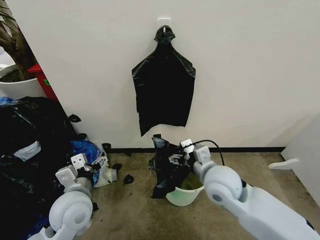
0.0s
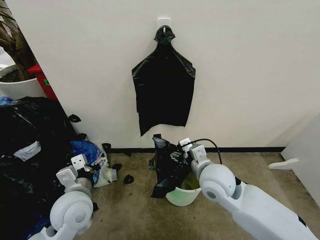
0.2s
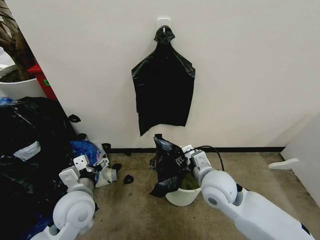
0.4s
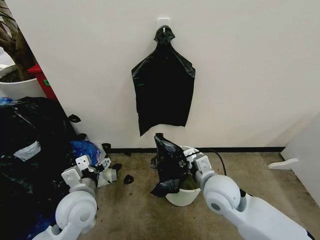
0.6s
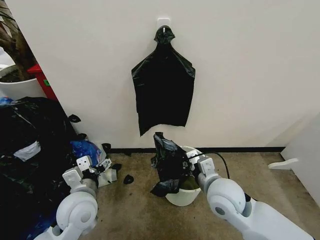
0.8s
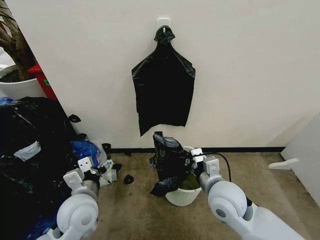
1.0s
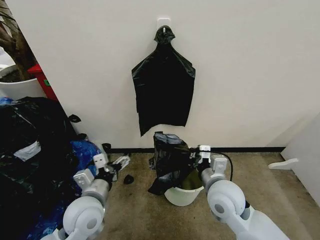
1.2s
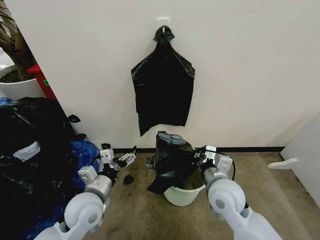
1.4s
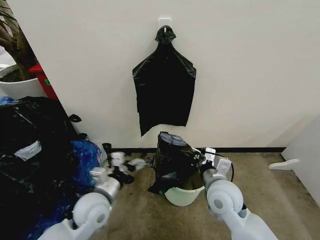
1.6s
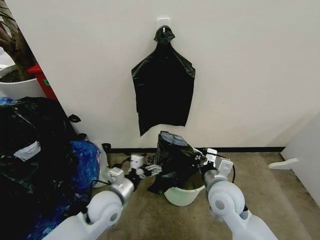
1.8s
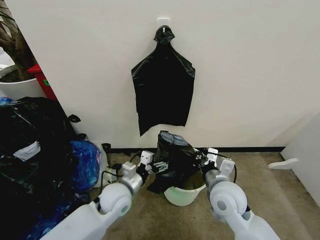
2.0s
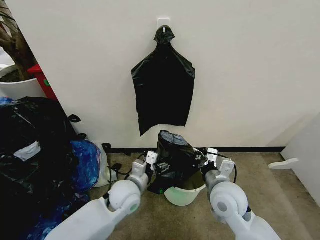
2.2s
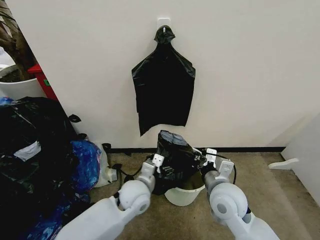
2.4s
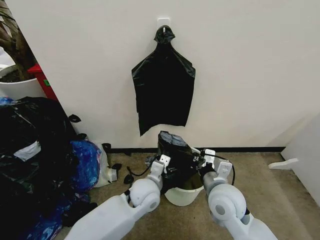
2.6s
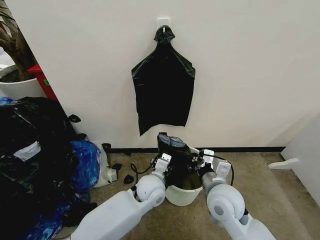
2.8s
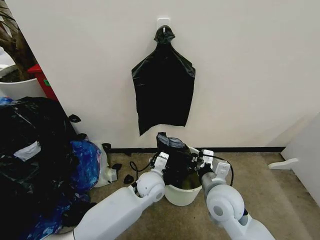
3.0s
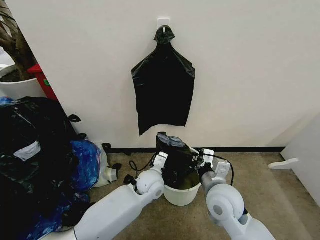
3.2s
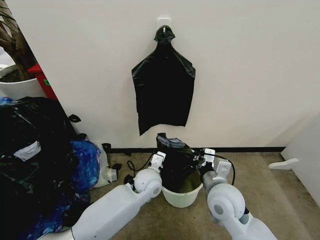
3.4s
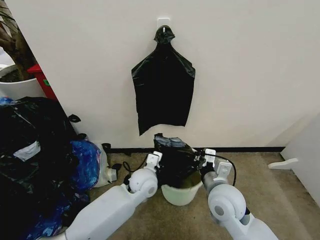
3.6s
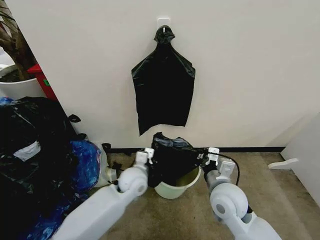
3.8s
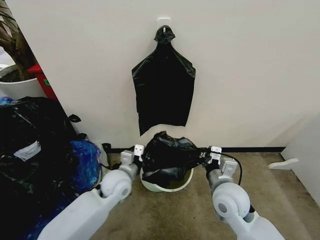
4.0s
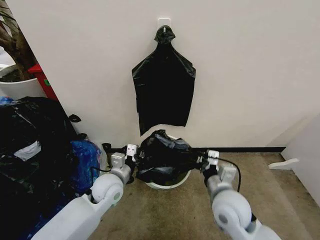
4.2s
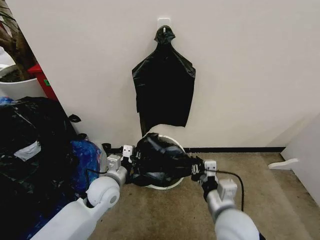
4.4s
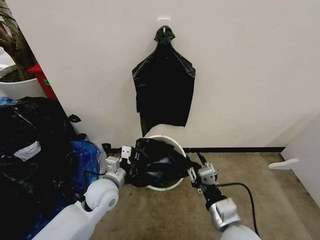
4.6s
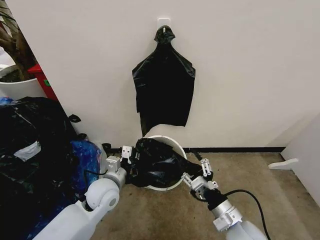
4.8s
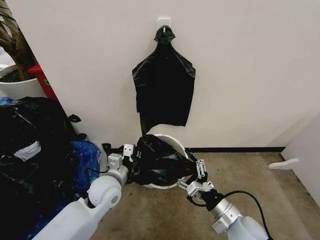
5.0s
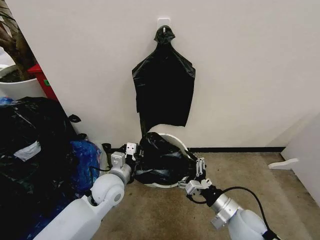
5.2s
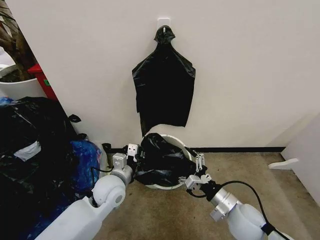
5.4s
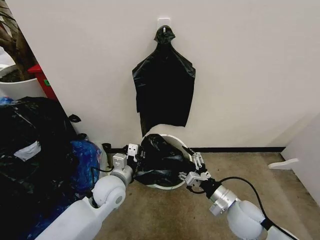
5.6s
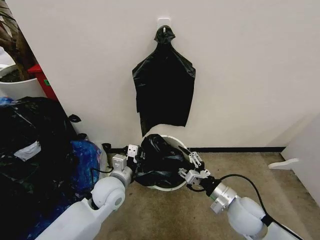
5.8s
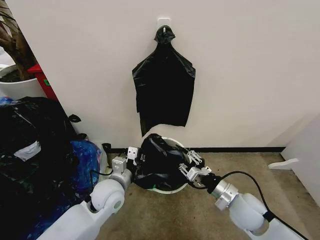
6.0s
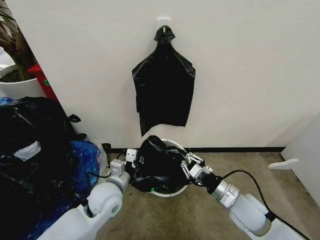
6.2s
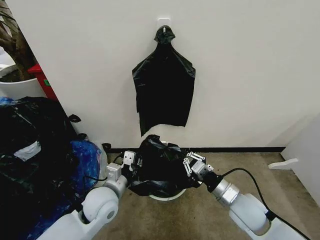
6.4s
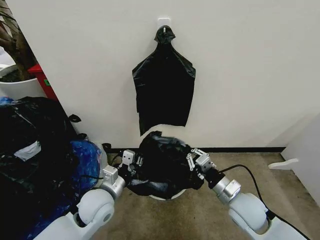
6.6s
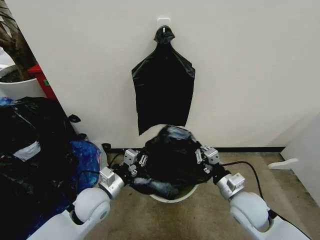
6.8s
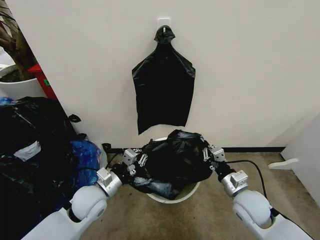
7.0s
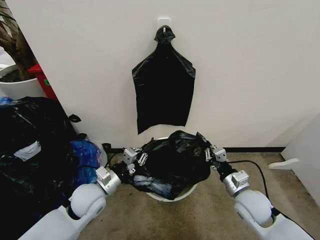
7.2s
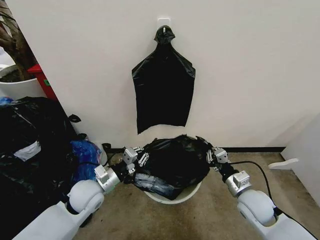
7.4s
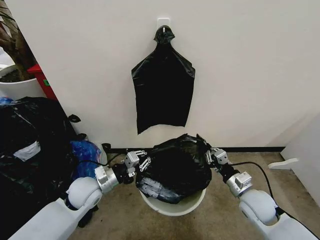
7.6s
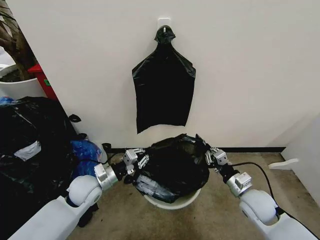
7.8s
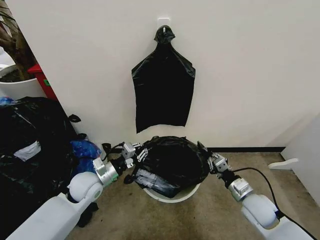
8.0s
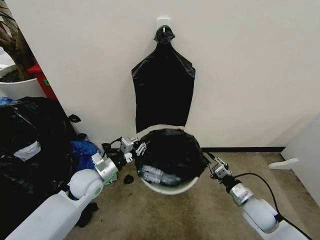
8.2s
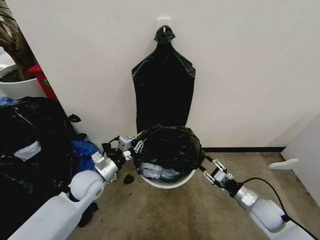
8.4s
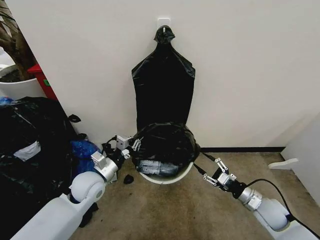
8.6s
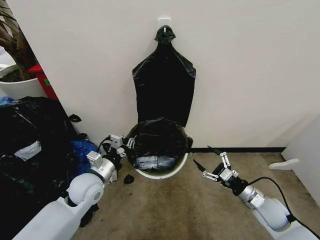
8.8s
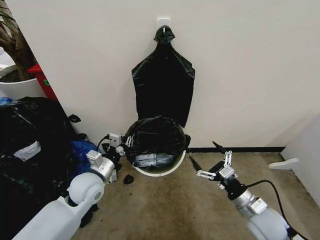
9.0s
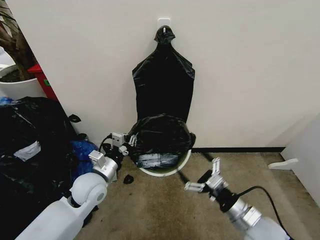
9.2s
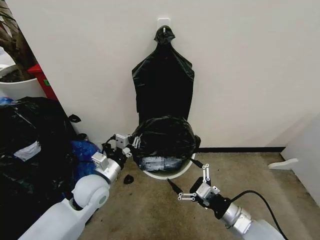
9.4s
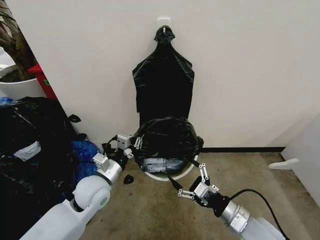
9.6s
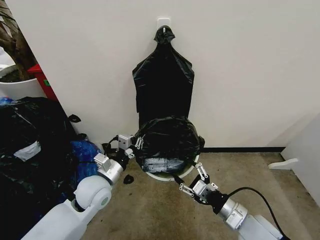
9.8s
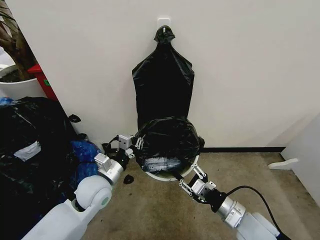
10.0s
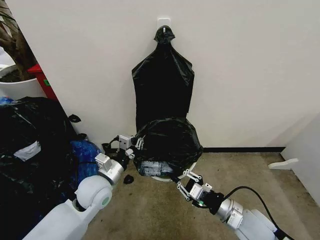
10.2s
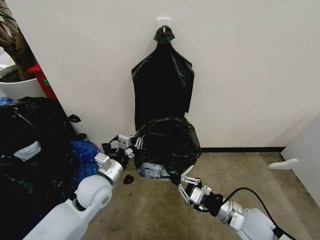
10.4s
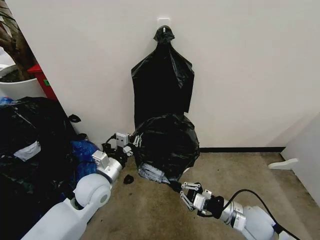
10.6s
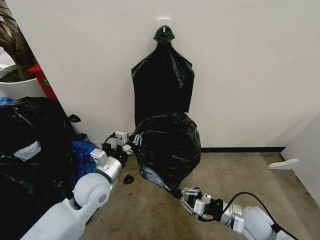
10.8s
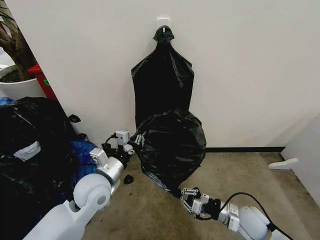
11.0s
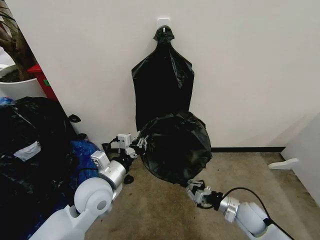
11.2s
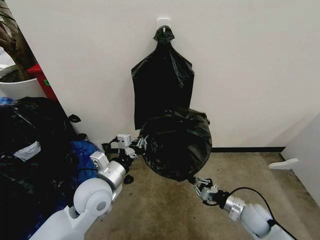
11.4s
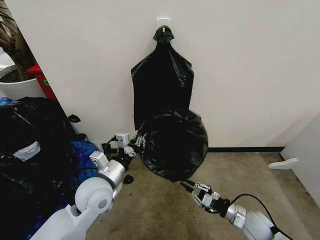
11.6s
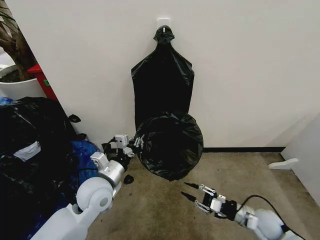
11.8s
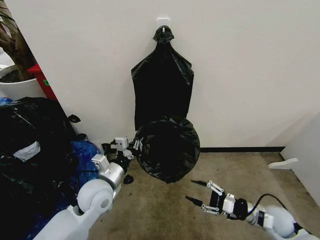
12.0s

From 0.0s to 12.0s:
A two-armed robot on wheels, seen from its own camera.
Task of the whole recording: Place the garbage bag over the trash bin.
From 0.0s to 1.6s: The grippers both shift downward by some 5 cm. The right gripper closes.
From 1.6s to 3.0s: The left gripper is displaced to the right and forward by roughly 20 cm.
From 3.0s to 4.4s: The right gripper heads backward, covering roughly 5 cm. The left gripper heads to the left, covering approximately 15 cm, and closes its fingers.
From 4.4s to 6.0s: The right gripper shifts some 10 cm to the right, forward and downward, and opens, then closes again.
From 6.0s to 7.6s: The right gripper heads to the right, covering about 5 cm. Meanwhile the left gripper shifts about 10 cm to the left.
From 7.6s to 9.0s: The right gripper shifts approximately 5 cm backward, and opens.
From 9.0s to 10.4s: The right gripper moves to the left, some 5 cm, and closes.
From 10.4s to 12.0s: The right gripper is displaced to the right and downward by about 15 cm, and opens up.

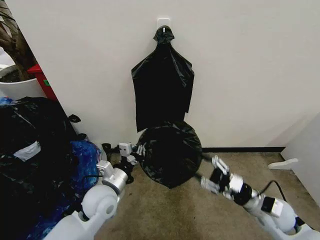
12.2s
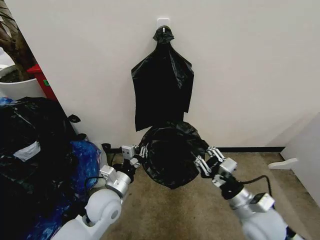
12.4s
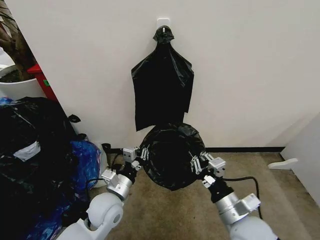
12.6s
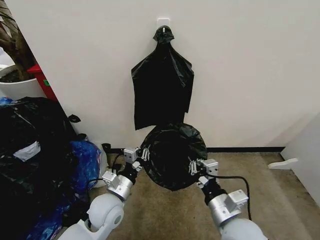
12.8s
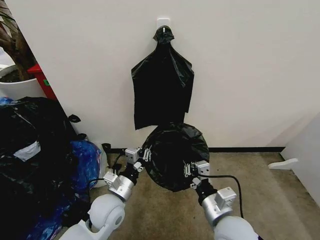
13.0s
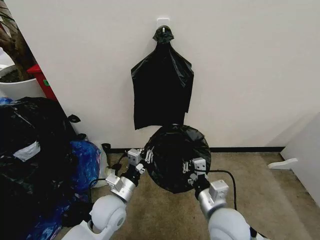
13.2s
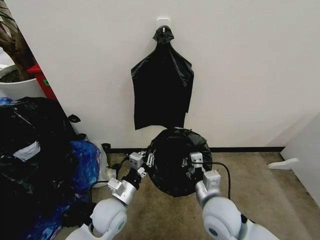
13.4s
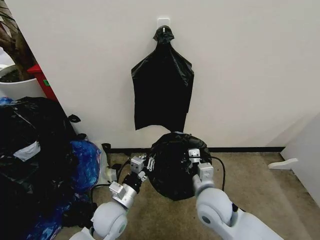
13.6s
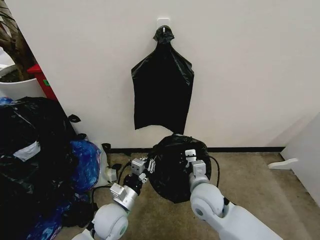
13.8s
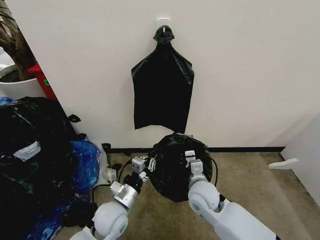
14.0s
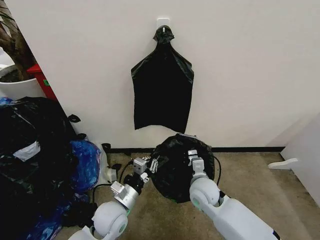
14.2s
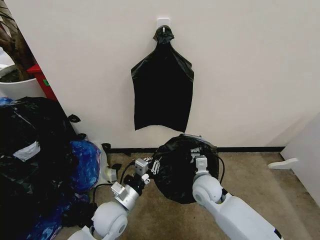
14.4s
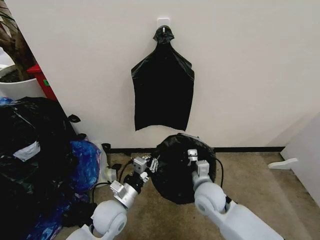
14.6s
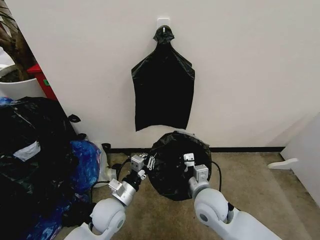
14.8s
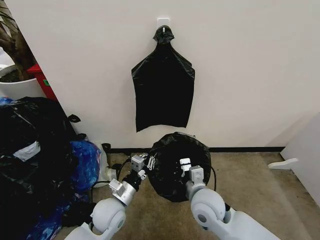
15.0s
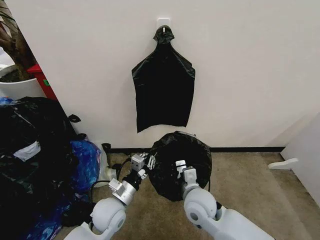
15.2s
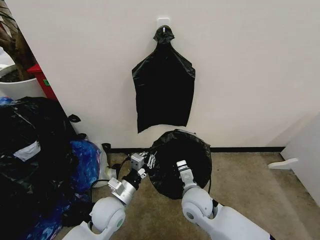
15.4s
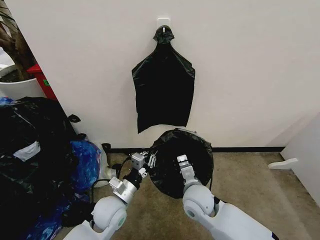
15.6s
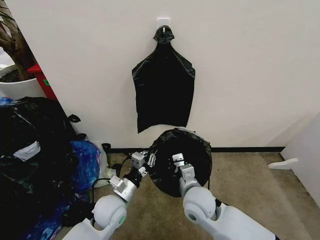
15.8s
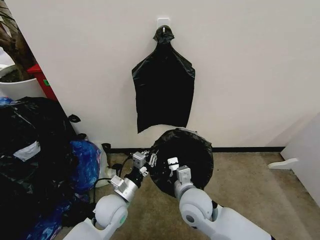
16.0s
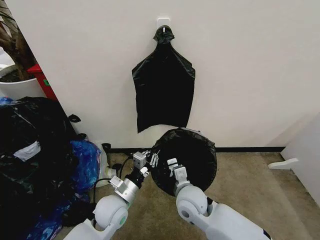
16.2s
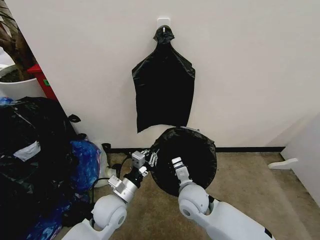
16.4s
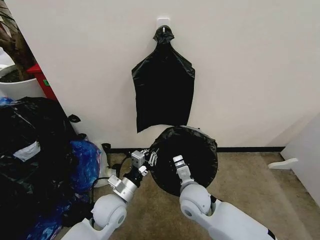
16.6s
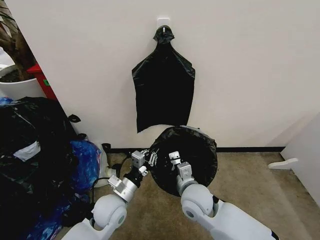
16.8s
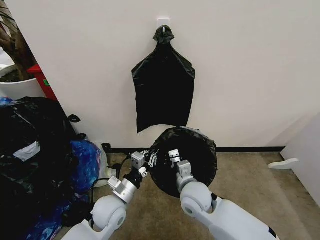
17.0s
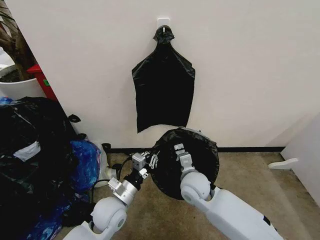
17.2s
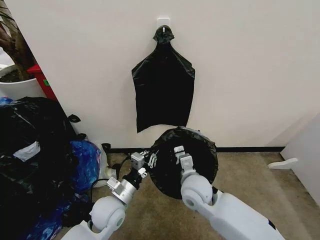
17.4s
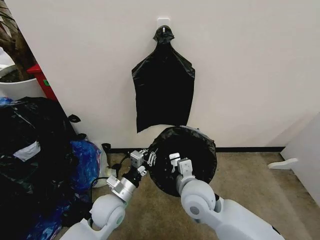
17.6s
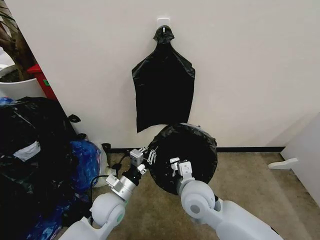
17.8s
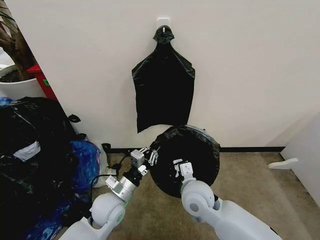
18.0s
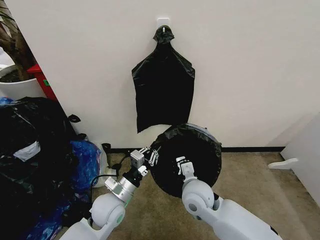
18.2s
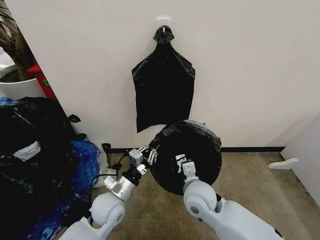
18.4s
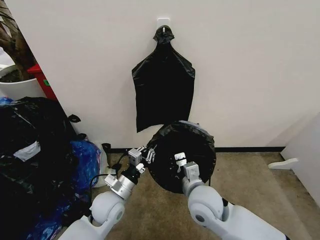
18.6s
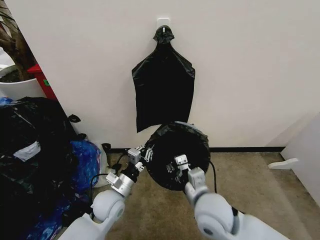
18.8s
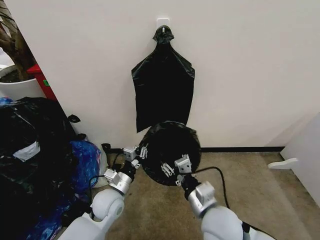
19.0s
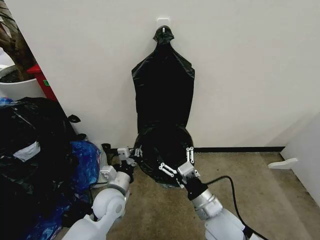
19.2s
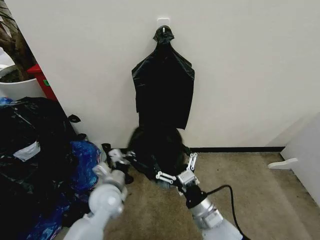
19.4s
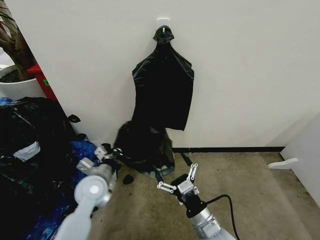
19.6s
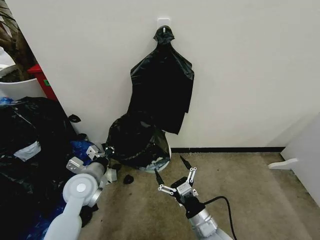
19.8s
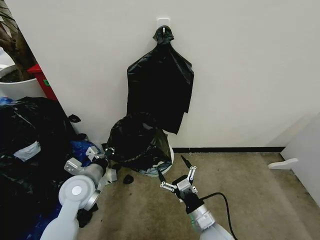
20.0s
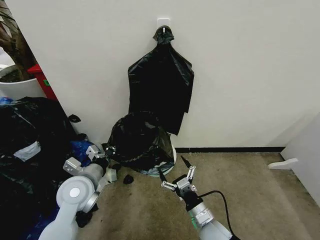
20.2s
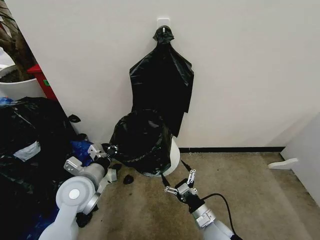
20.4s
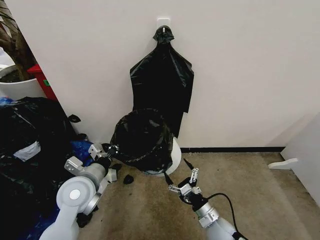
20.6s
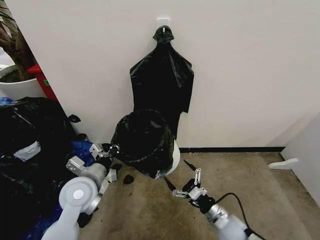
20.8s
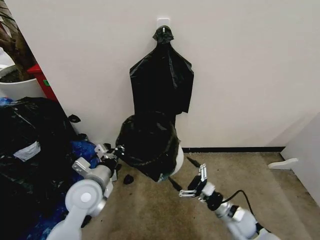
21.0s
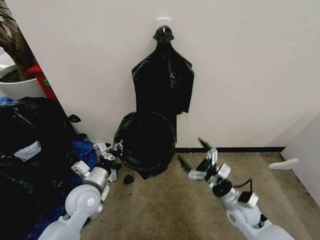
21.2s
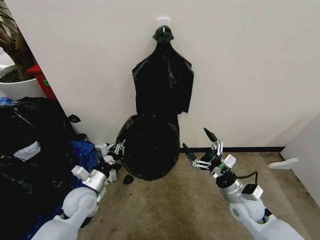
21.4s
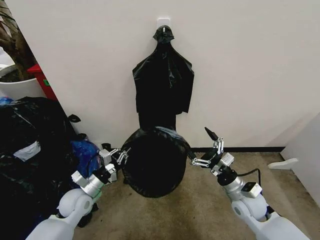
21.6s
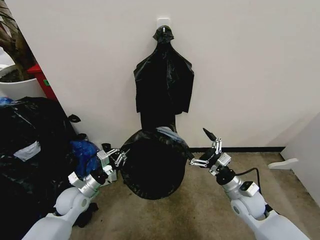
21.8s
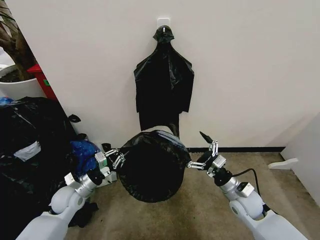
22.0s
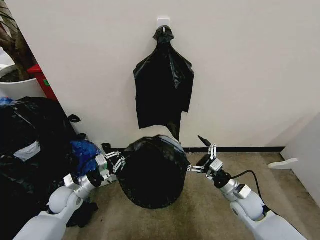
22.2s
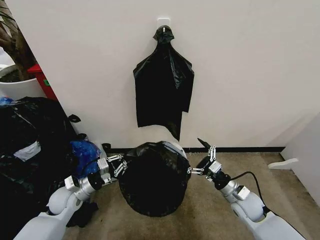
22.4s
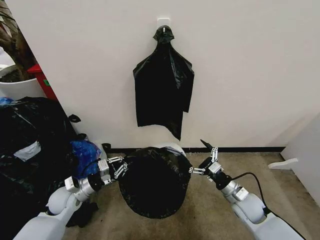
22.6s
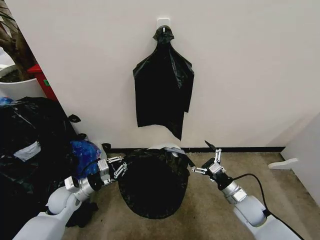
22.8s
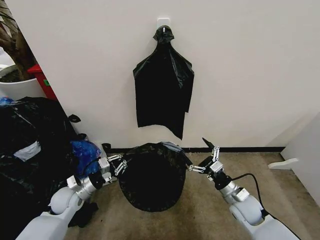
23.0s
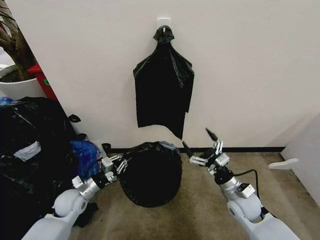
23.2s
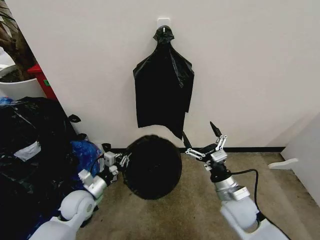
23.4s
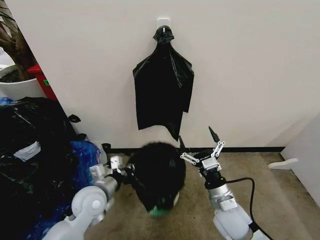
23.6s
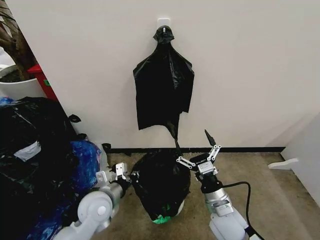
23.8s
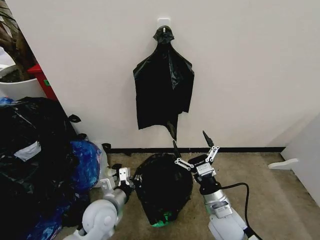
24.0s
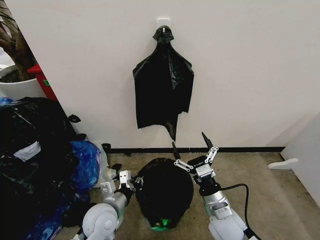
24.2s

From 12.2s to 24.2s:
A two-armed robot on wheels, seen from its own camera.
Task of the whole recording: Place the garbage bag over the trash bin.
From 12.2s to 13.8s: The right gripper shifts about 20 cm to the left, and closes; the left gripper is displaced downward by roughly 5 cm.
From 15.2s to 16.6s: The grippers make only small movements.
From 18.2s to 19.8s: The right gripper travels backward and downward by roughly 15 cm, and opens up, while the left gripper shifts about 10 cm to the left and upward.
From 19.8s to 21.2s: The right gripper heads to the right and forward, covering approximately 15 cm.
From 21.2s to 22.6s: The left gripper moves to the left and downward, some 10 cm. Meanwhile the right gripper ends up some 5 cm from where it was.
From 22.6s to 24.2s: The right gripper shifts roughly 15 cm to the left, backward and upward; the left gripper goes some 15 cm to the right and backward.
